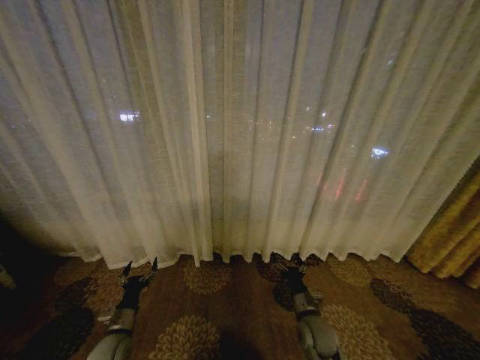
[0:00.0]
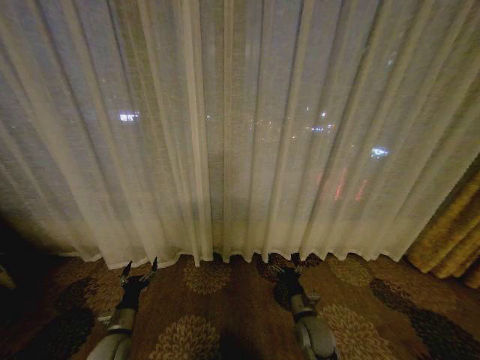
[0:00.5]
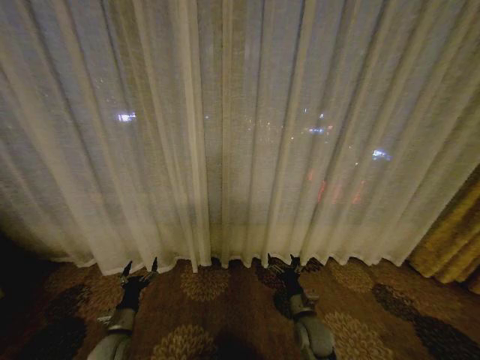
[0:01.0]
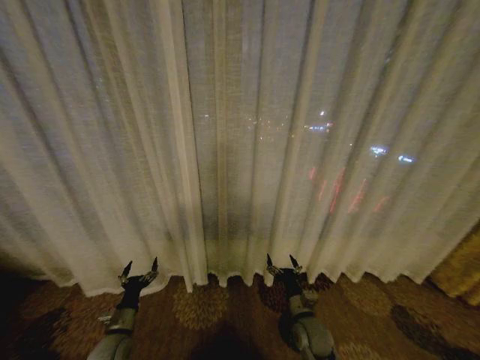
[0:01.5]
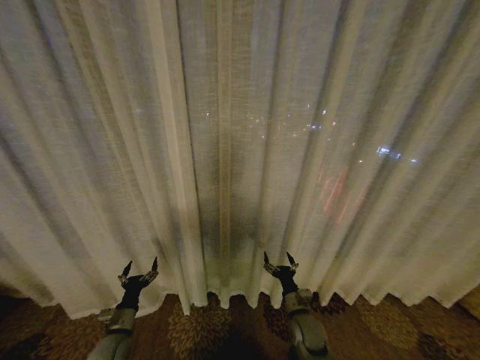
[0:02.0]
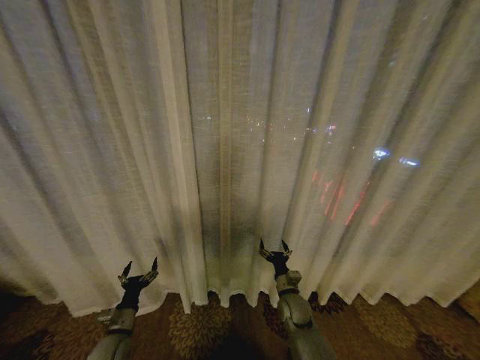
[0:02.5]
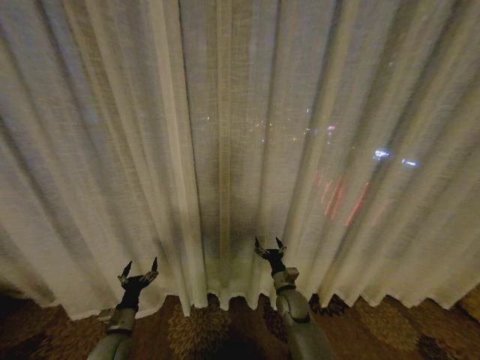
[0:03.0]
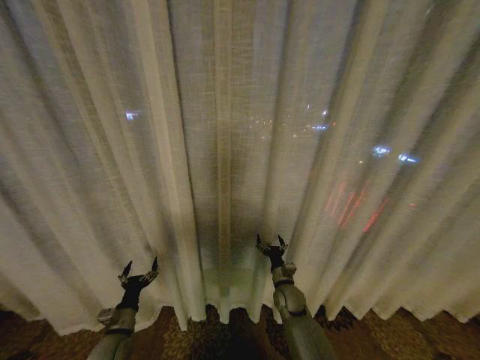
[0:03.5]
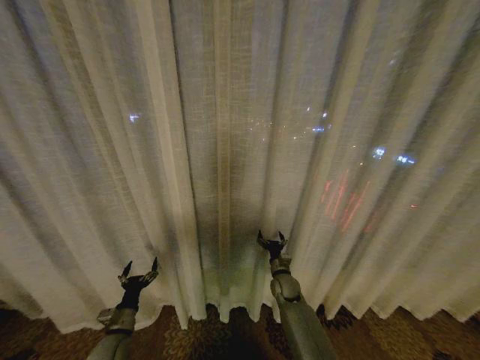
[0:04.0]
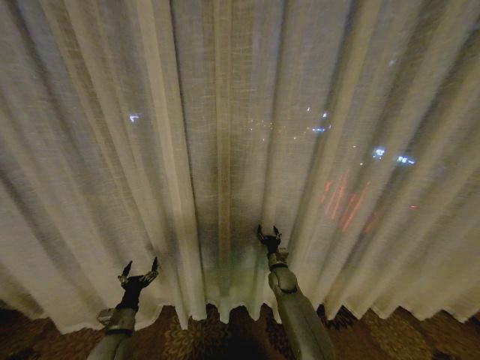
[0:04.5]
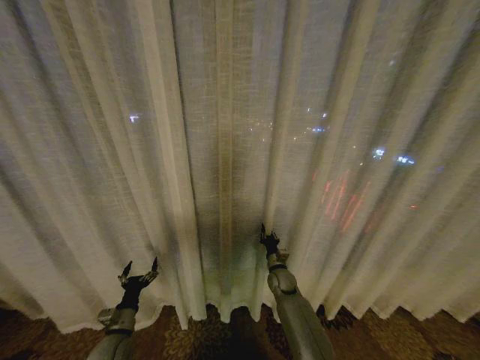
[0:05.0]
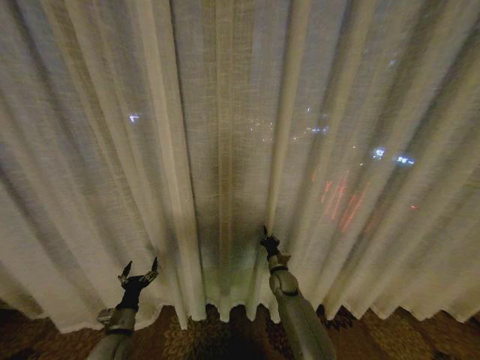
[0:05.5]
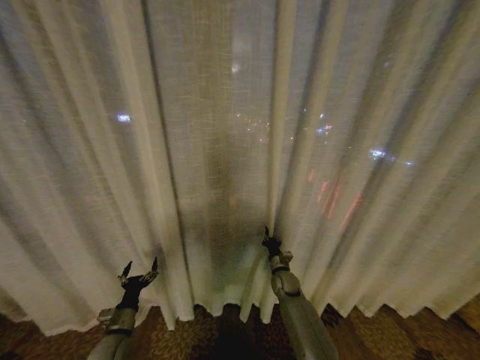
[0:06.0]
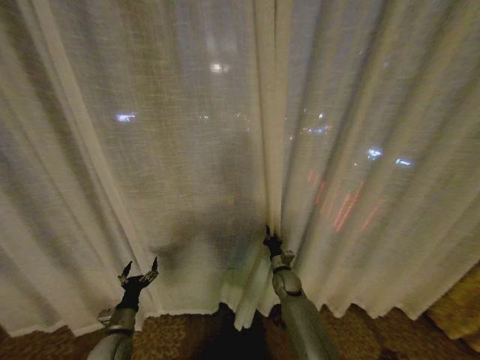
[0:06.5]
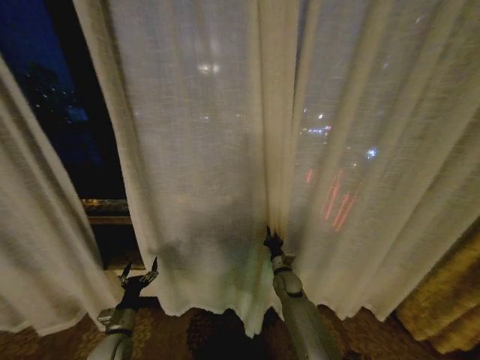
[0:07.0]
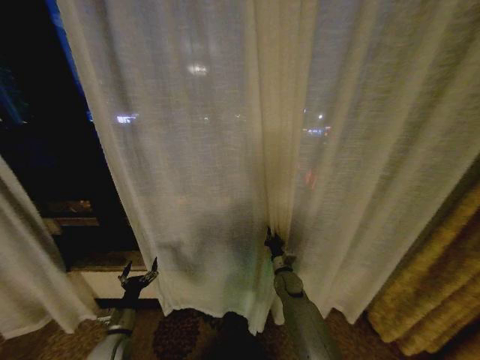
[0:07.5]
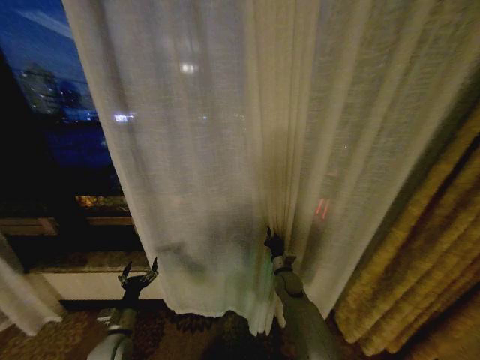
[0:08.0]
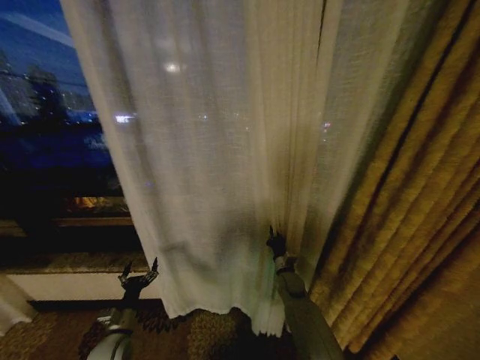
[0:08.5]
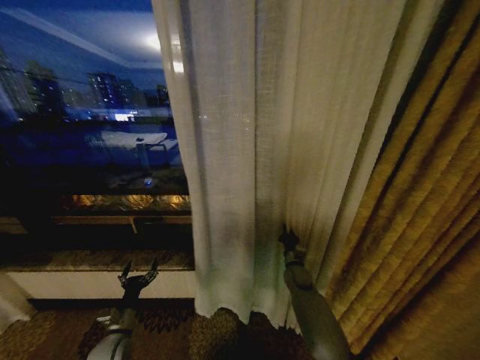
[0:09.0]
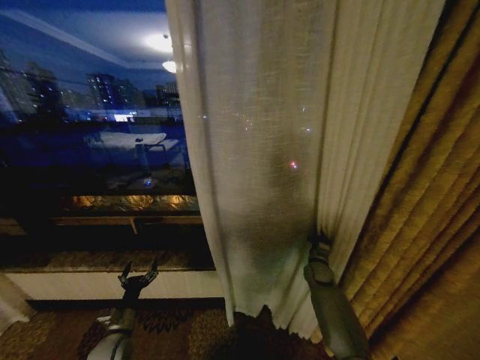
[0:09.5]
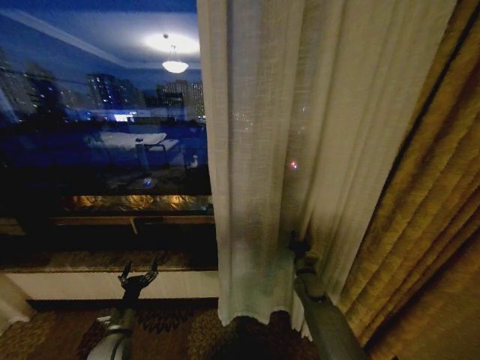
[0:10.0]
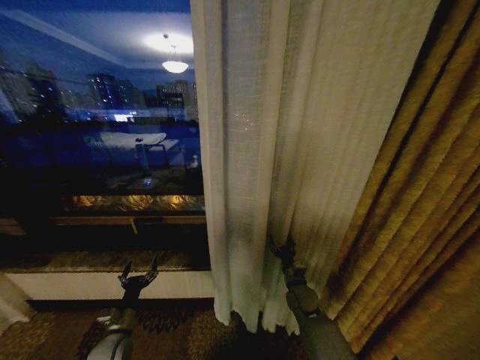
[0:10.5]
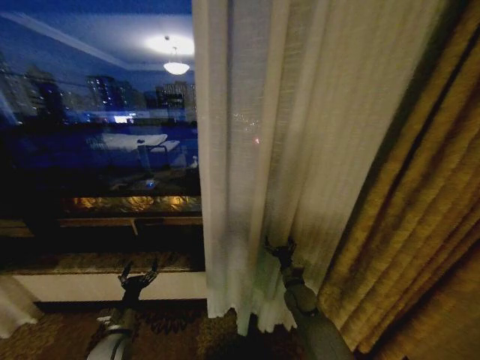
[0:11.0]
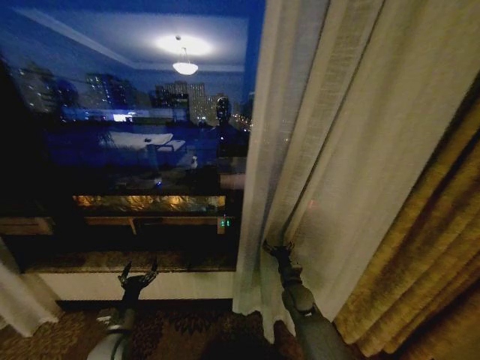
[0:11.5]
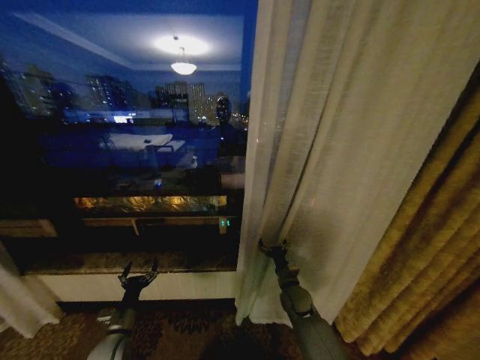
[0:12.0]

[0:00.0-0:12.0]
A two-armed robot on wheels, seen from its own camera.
Task of the whole recording: Open the curtains by pulling them apart, changing their state from closed to fully open.
0:02.0 to 0:04.0: The right gripper is displaced forward by roughly 15 cm.
0:04.0 to 0:06.0: The right gripper closes up.
0:08.0 to 0:10.0: The right gripper shifts about 5 cm to the right.
0:10.0 to 0:12.0: The right gripper moves to the left, about 5 cm, and opens.

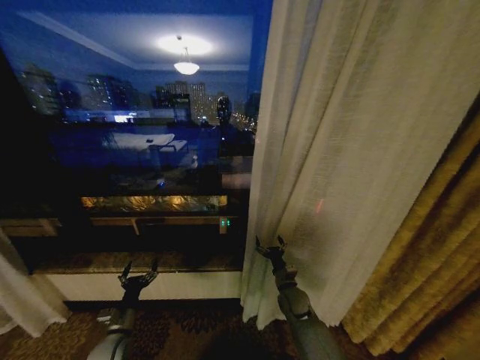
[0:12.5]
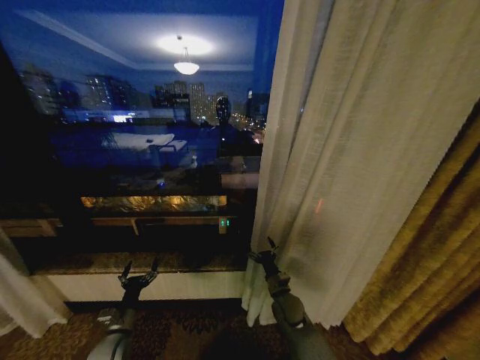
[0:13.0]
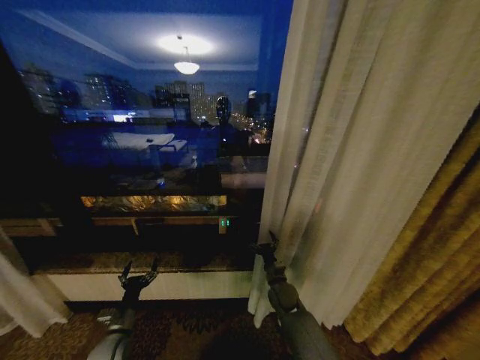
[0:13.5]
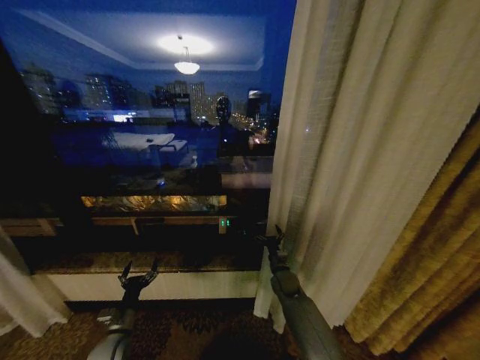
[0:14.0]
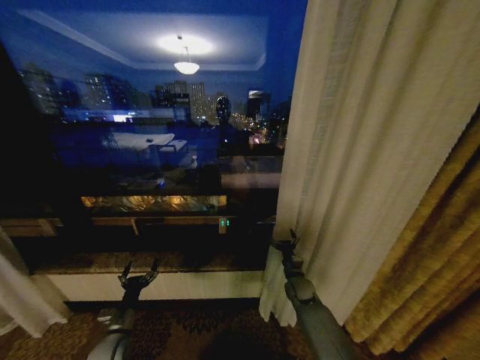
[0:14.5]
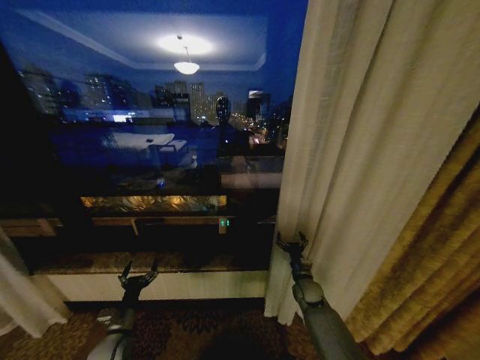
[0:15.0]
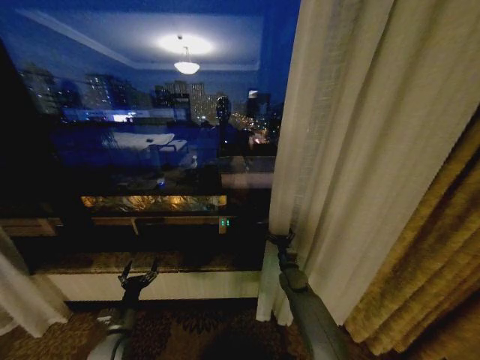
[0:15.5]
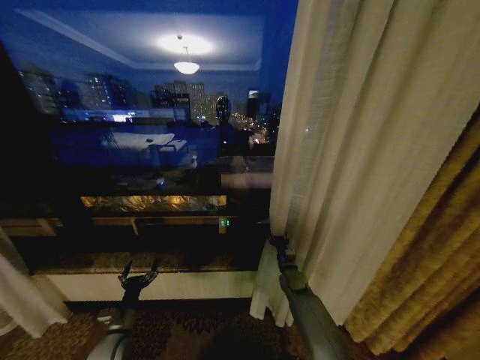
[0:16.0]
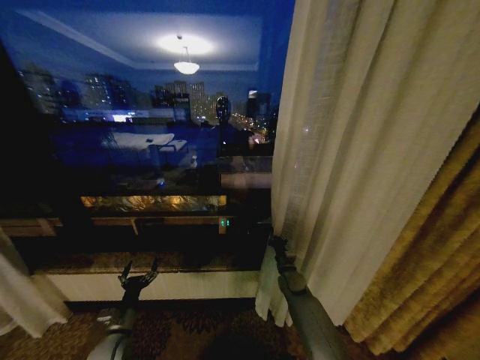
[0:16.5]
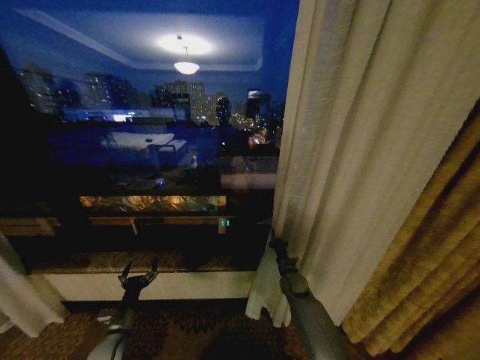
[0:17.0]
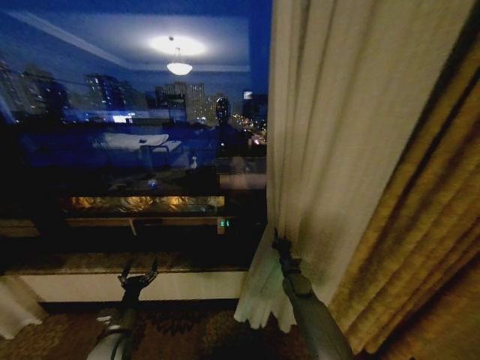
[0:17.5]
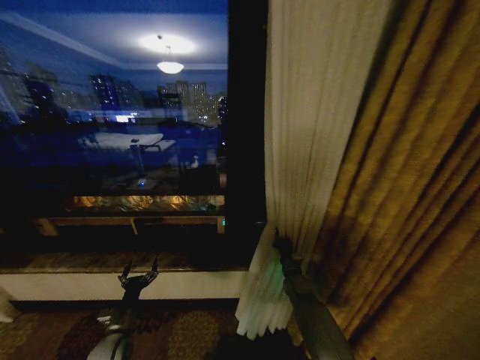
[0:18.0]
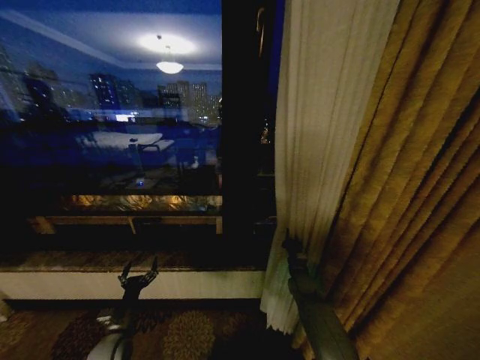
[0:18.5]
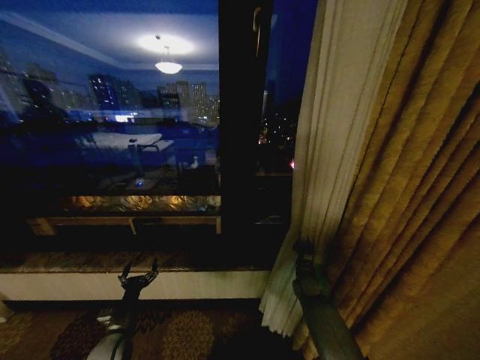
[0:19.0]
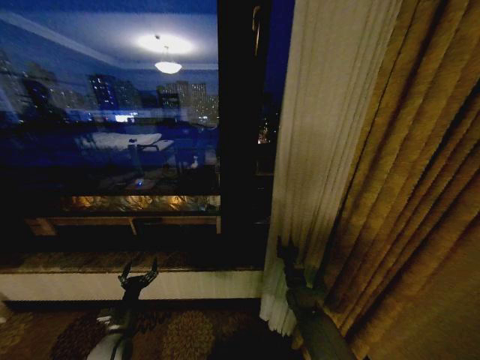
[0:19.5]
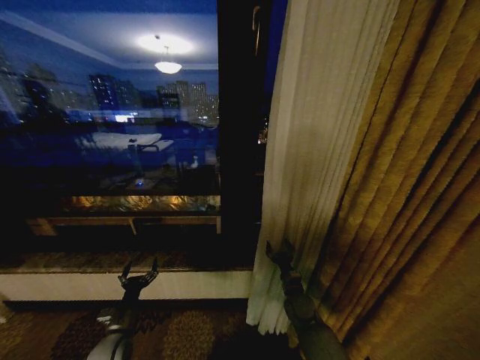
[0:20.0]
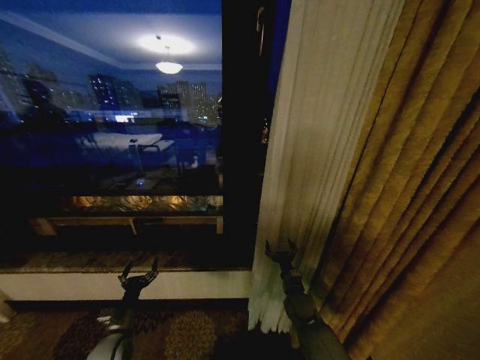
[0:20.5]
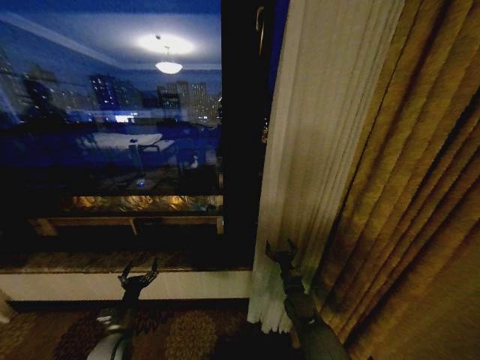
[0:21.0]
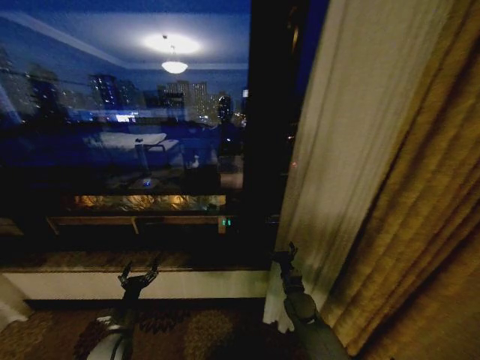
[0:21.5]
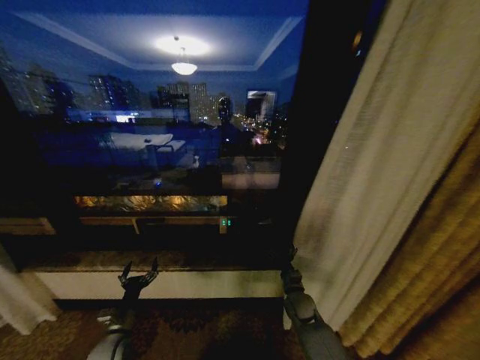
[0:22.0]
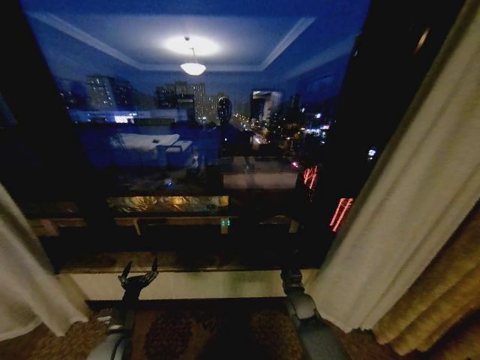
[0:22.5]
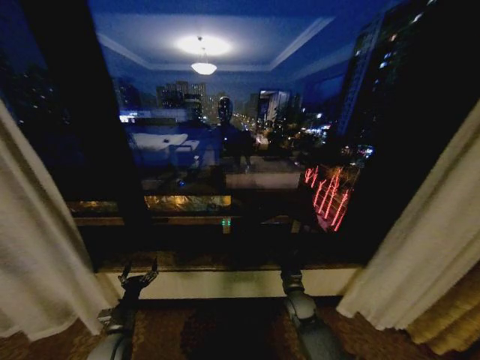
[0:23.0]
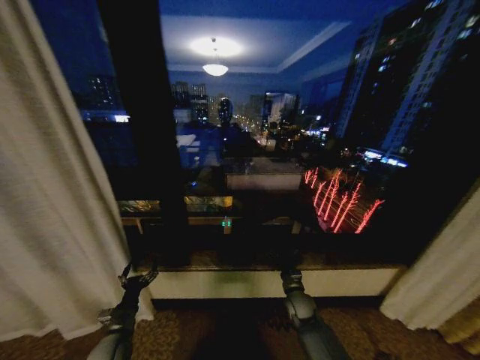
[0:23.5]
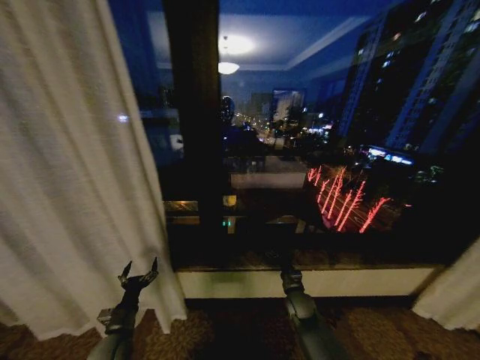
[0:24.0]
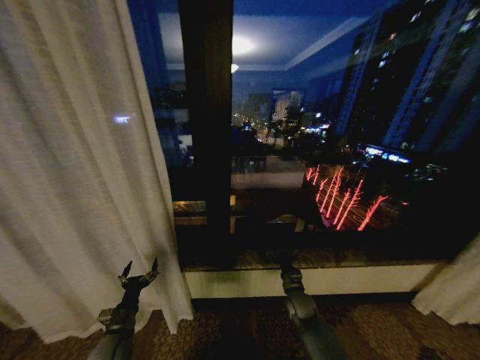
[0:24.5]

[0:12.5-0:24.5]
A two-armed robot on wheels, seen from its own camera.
Task of the whole recording: Open the curtains by pulling them apart, changing their state from closed to fully open.
0:12.5 to 0:14.5: The right gripper shifts by approximately 5 cm.
0:14.5 to 0:16.5: The right gripper closes its fingers.
0:18.5 to 0:20.5: The right gripper heads backward, covering some 5 cm, and opens up.

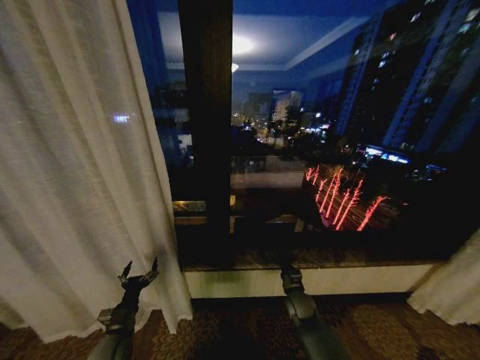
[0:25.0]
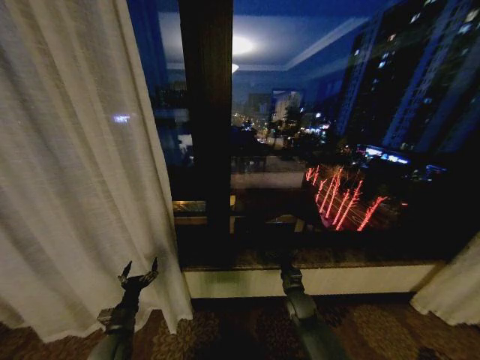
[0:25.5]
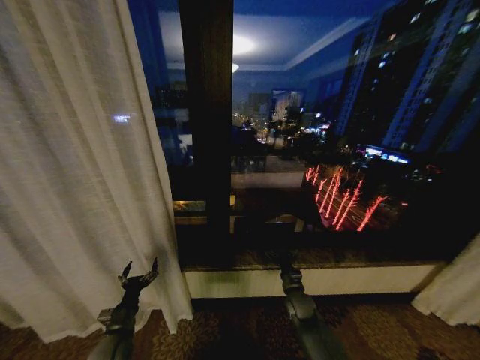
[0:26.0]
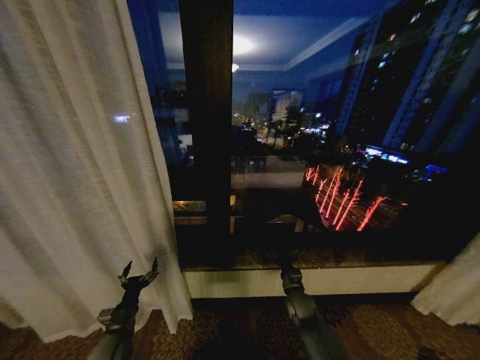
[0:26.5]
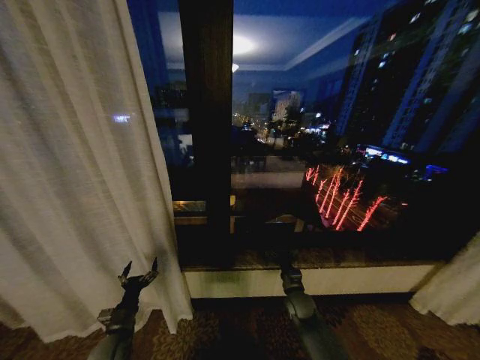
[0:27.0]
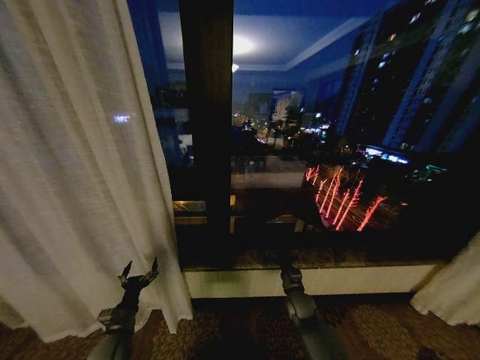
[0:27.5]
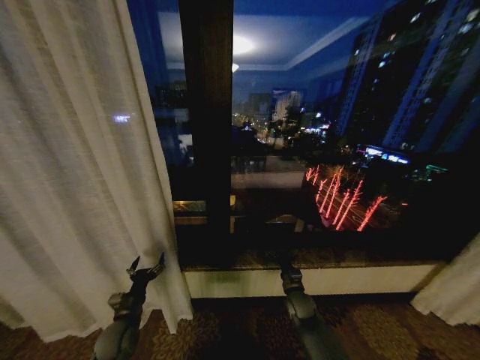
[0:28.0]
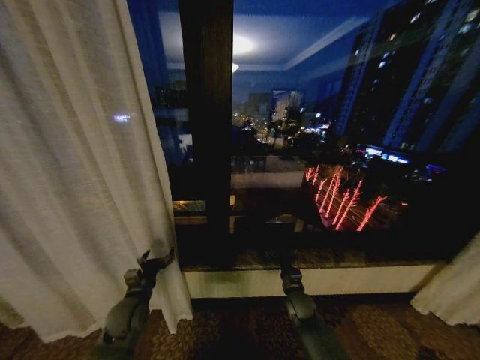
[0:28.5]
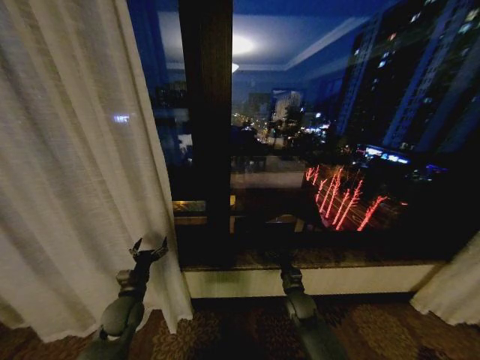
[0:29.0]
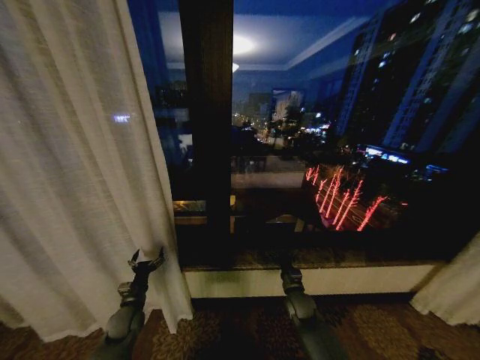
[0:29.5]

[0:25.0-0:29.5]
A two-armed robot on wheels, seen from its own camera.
Task of the whole recording: Open the curtains by pulling them apart, changing their state from closed to fully open.
0:25.0 to 0:27.0: Both grippers stay about where they are.
0:27.0 to 0:29.5: The left gripper goes roughly 10 cm forward, and goes upward and returns, roughly 10 cm each way.
